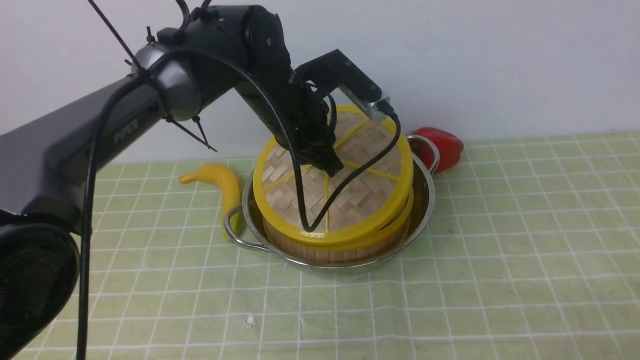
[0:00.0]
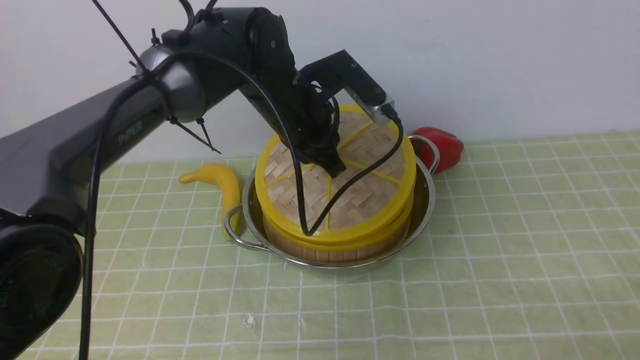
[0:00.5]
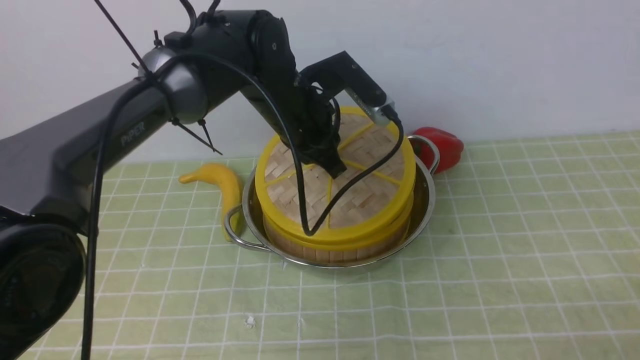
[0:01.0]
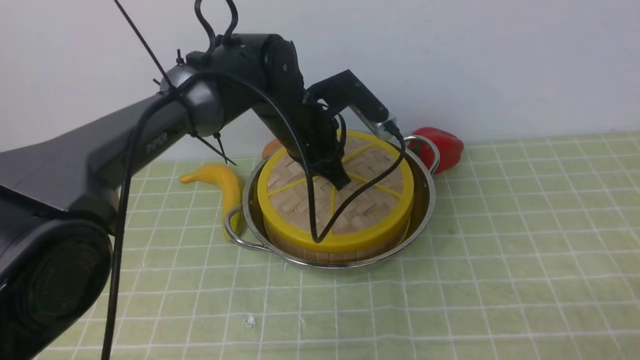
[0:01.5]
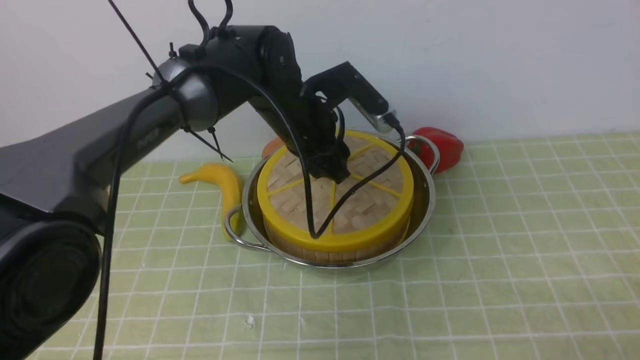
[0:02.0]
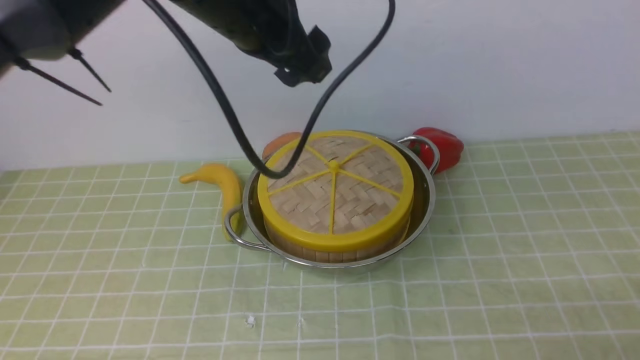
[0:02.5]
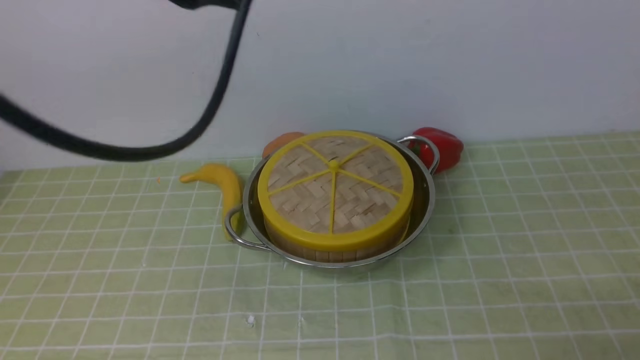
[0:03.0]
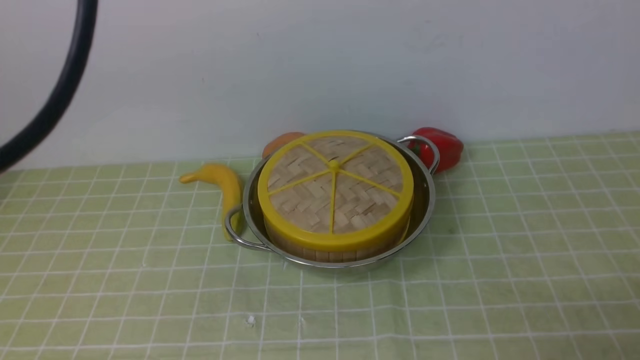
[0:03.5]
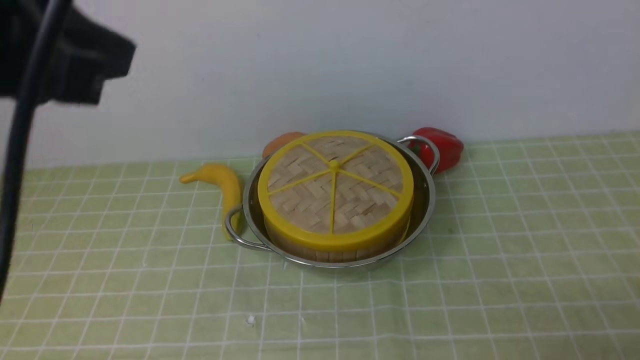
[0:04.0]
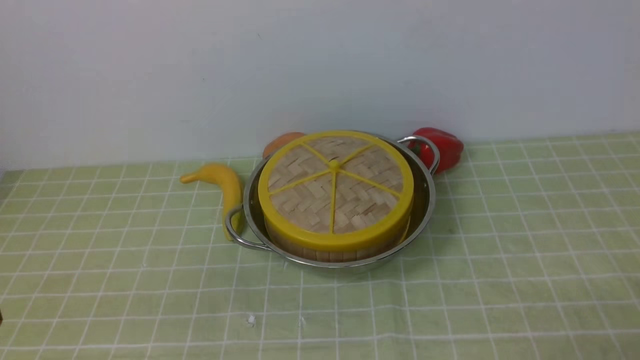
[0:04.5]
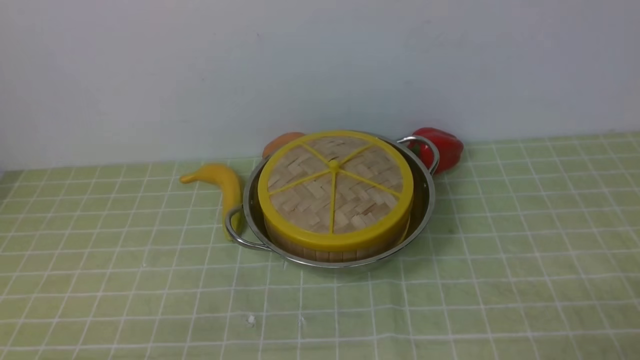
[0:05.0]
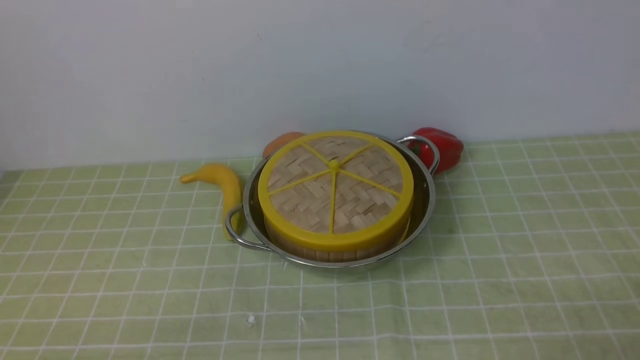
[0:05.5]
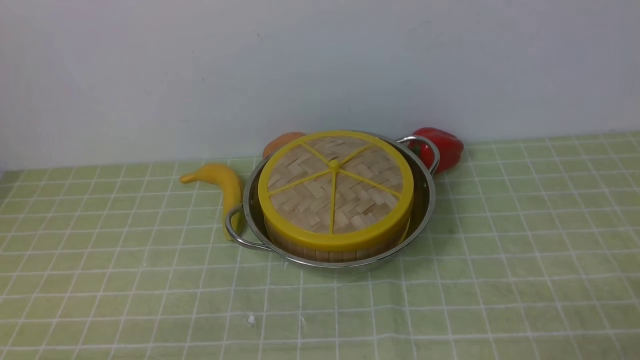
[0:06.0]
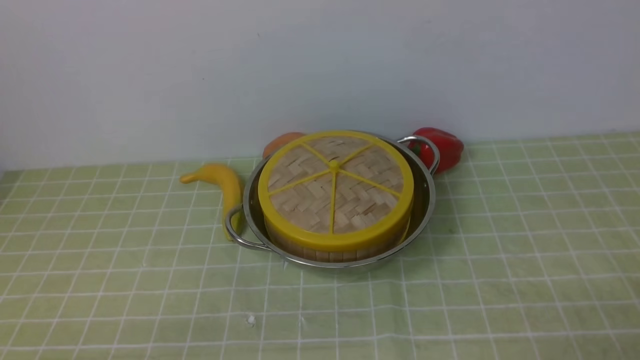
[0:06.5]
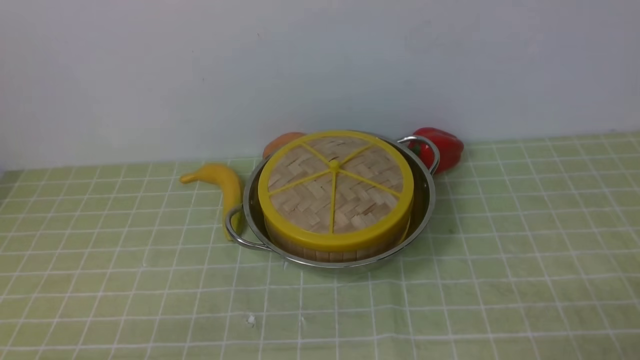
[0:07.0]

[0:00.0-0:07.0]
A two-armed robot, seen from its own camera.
Task of the whole recording: place the steamer in the pot on the green tablecloth, and put the lid on the steamer.
Step, 0:00.0 to 0:02.5: use the left arm to place the steamer lid on the steamer.
0:00.0 to 0:02.0: The left gripper opens up.
0:02.0 to 0:03.5: The left gripper shifts approximately 35 cm upward and backward, and closes.
0:03.5 to 0:05.0: The left gripper goes approximately 40 cm downward and backward.
0:05.0 to 0:07.0: Neither gripper changes place.
